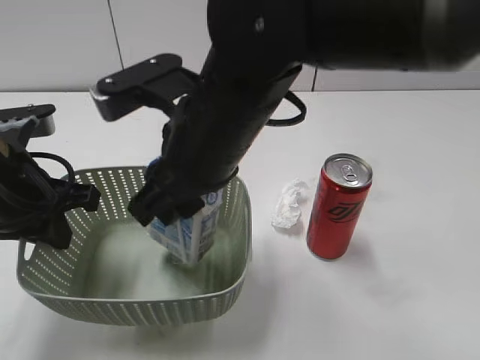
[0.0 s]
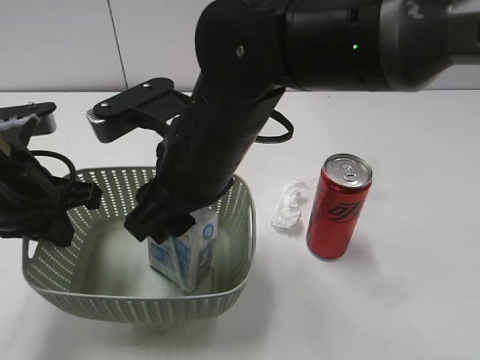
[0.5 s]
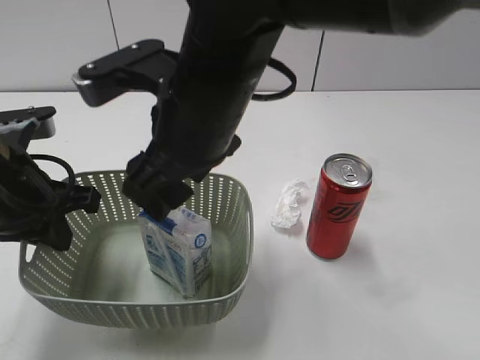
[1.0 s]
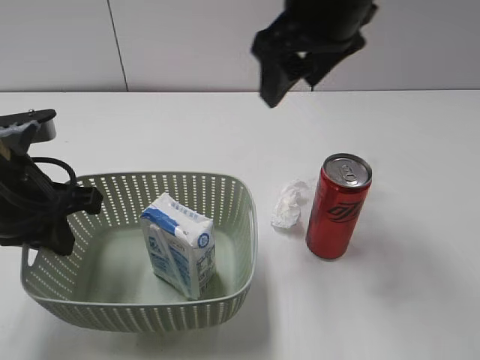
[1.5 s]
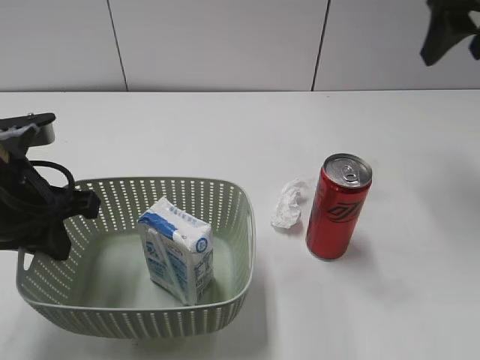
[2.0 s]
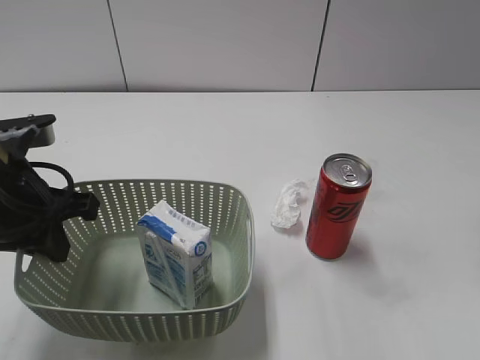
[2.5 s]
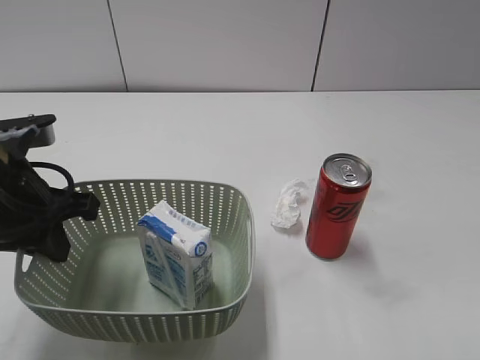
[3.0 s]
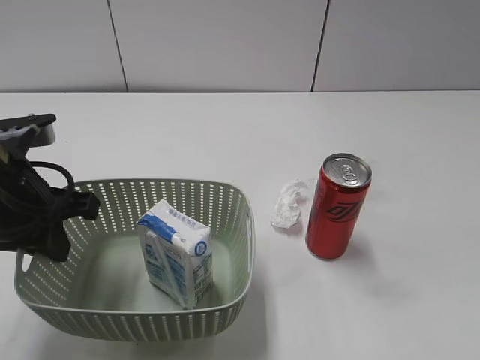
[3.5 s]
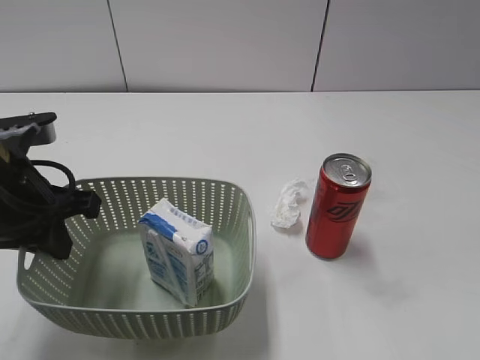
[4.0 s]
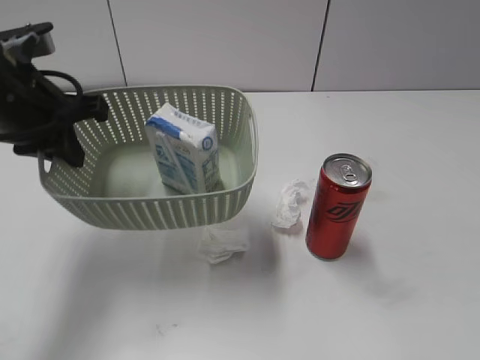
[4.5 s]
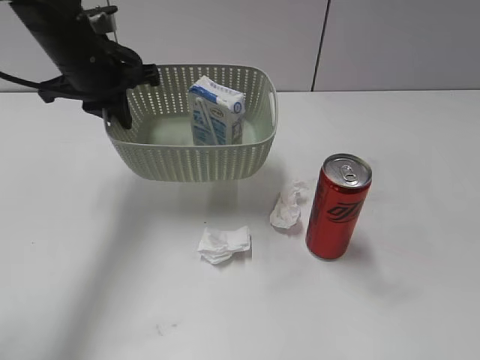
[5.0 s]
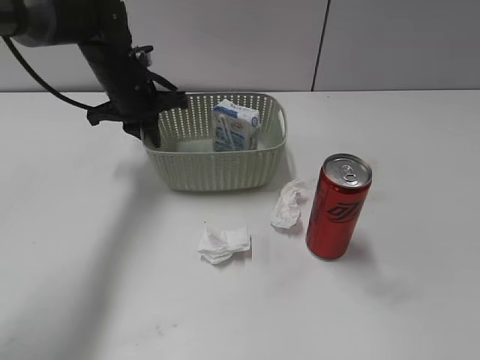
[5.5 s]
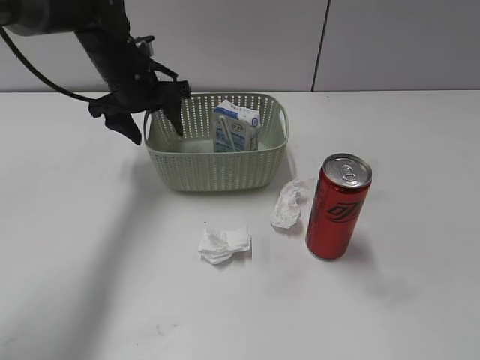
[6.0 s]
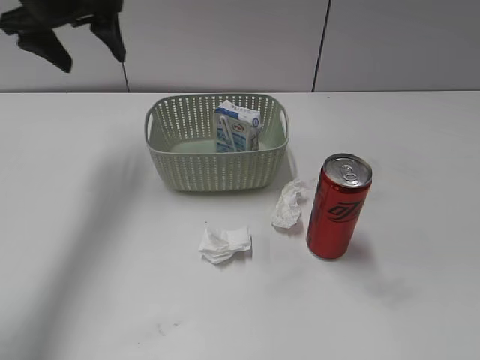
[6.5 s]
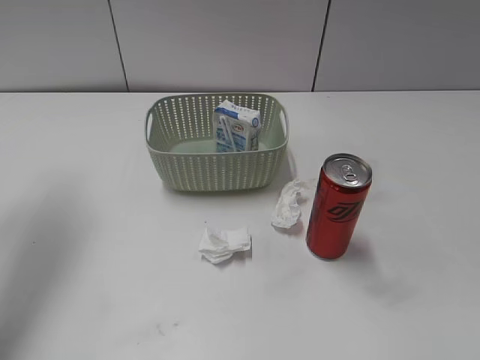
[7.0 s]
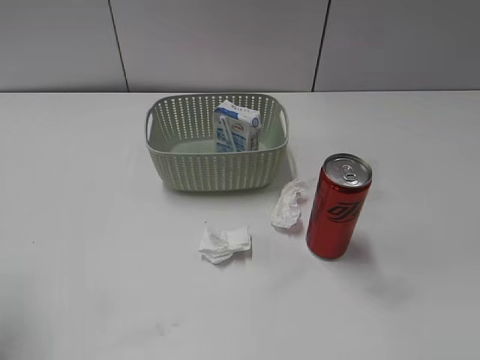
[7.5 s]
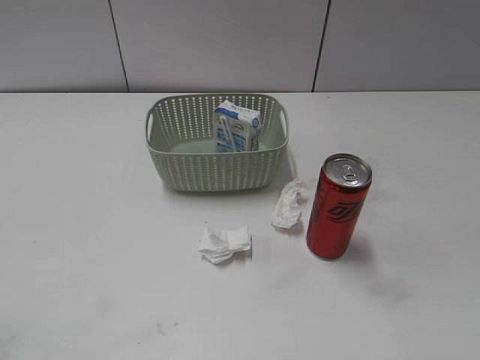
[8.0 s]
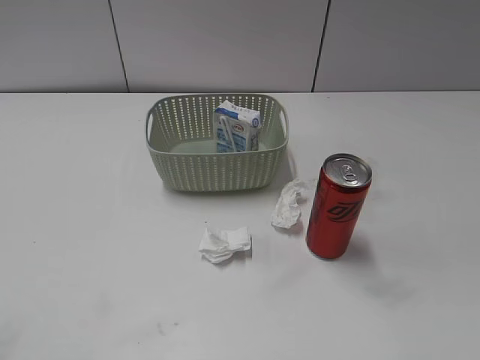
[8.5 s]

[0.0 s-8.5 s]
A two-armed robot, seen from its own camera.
Step, 1.5 to 6.0 s: Place the basket on the table with left gripper.
0.0 to 2.0 s: The right gripper goes about 30 cm to the right and forward, and opens.
2.0 to 4.0 s: The right gripper moves backward, some 35 cm.
4.0 to 6.5 s: The left gripper heads forward and upward, covering roughly 25 cm, and opens its fingers.
6.5 to 8.5 s: The left gripper shifts roughly 40 cm backward.

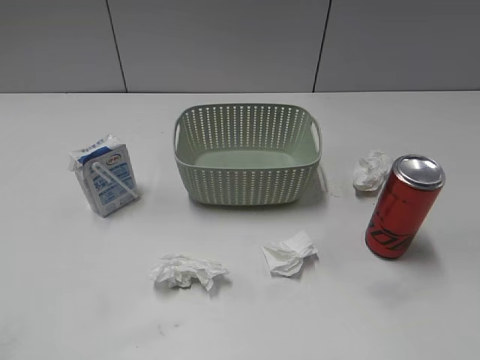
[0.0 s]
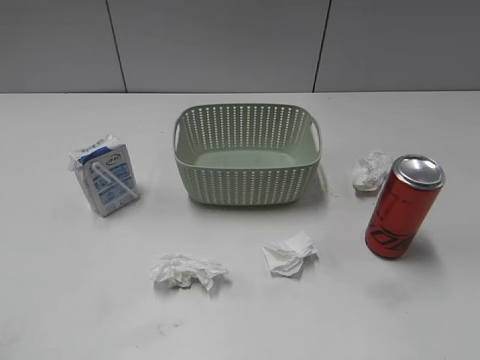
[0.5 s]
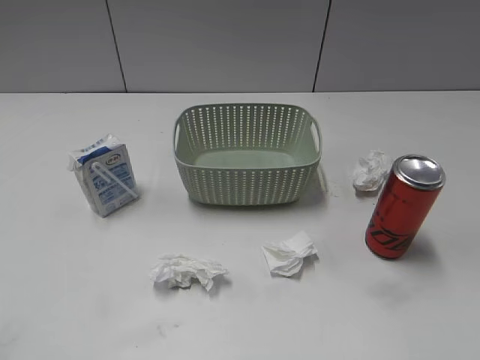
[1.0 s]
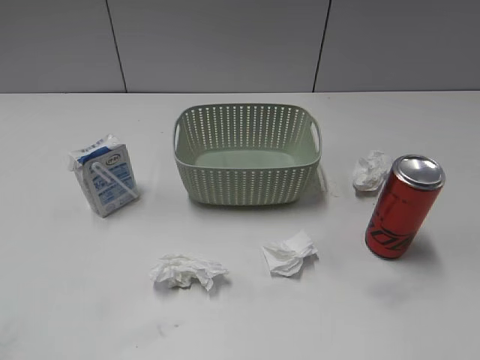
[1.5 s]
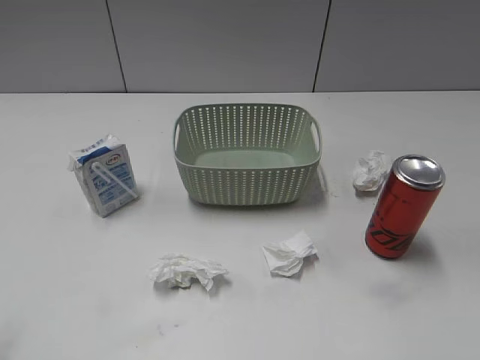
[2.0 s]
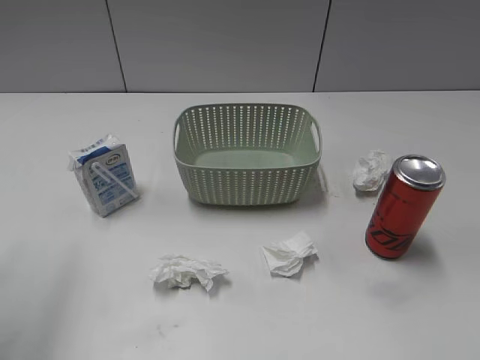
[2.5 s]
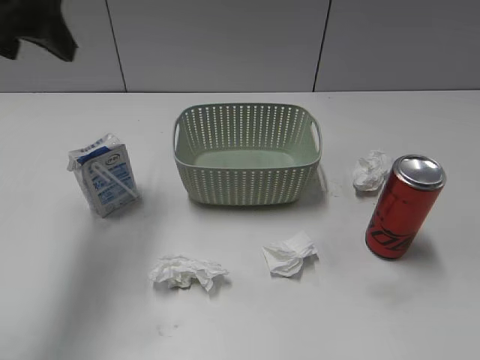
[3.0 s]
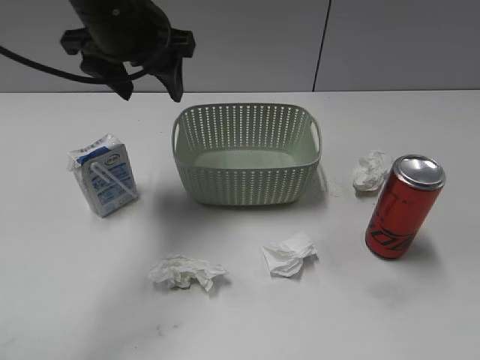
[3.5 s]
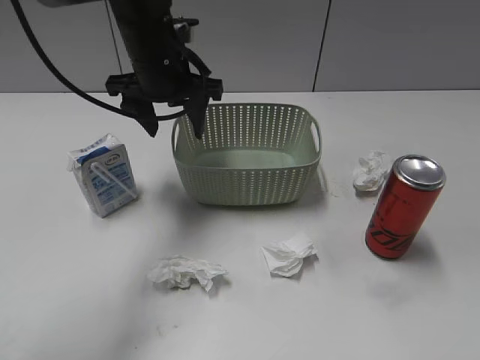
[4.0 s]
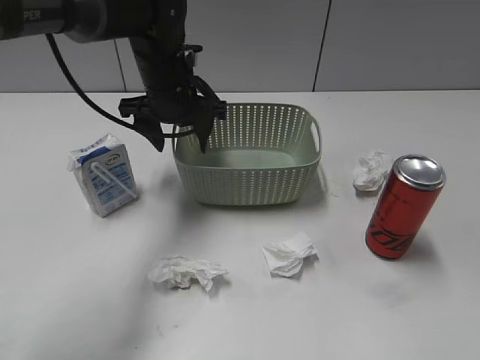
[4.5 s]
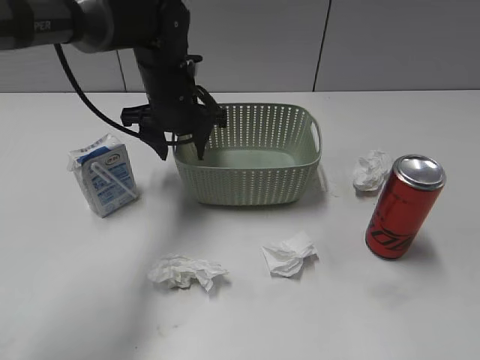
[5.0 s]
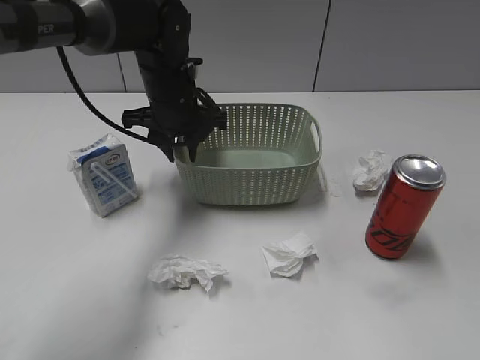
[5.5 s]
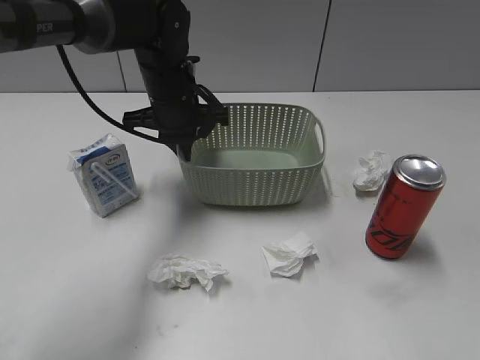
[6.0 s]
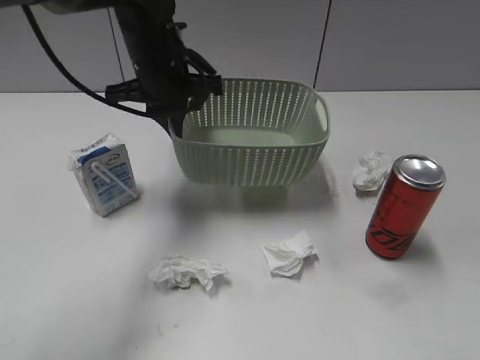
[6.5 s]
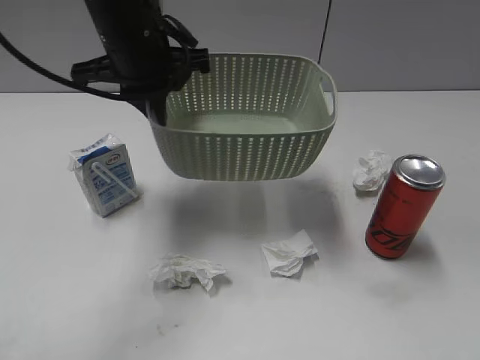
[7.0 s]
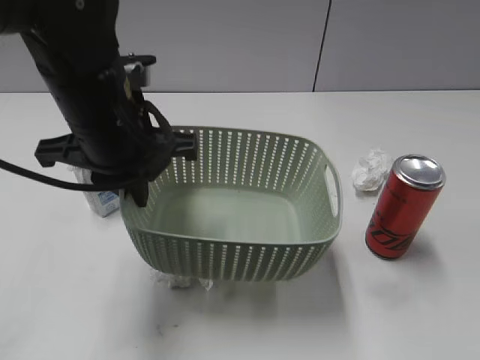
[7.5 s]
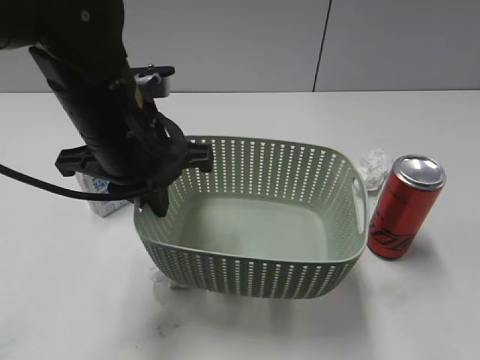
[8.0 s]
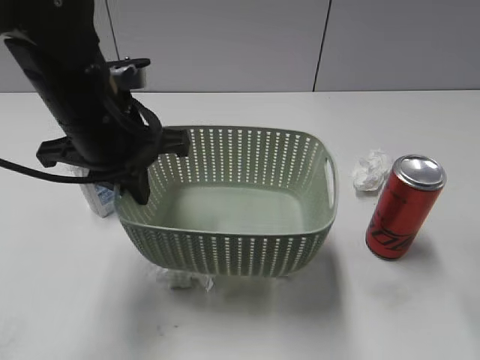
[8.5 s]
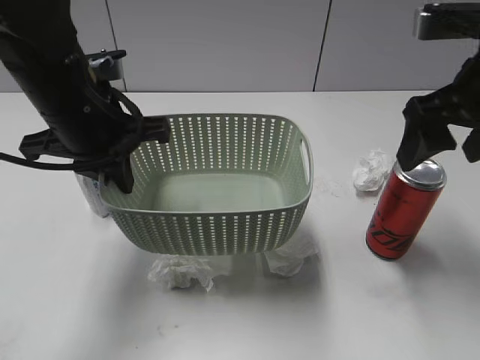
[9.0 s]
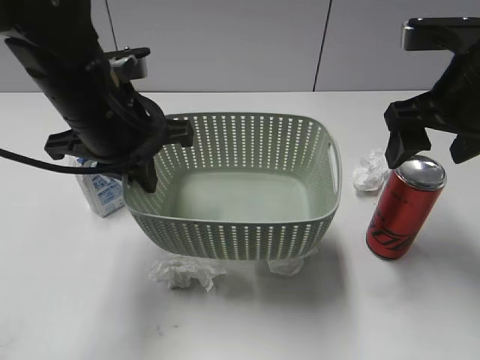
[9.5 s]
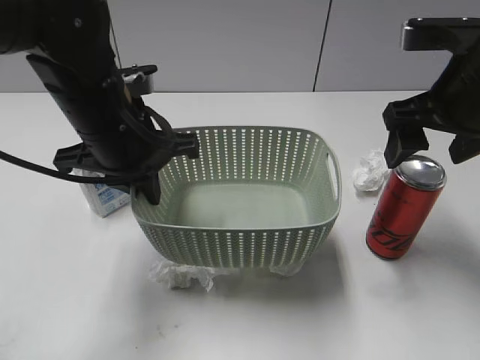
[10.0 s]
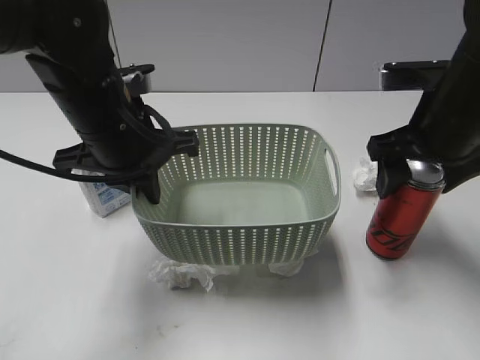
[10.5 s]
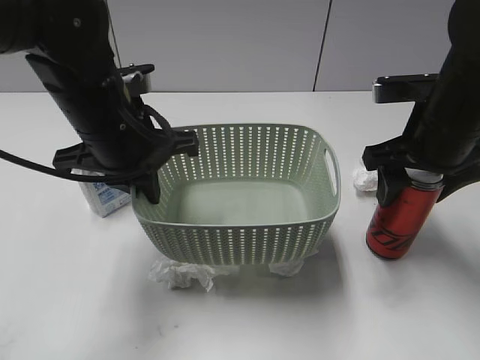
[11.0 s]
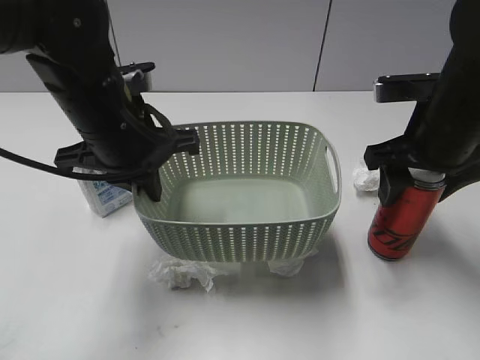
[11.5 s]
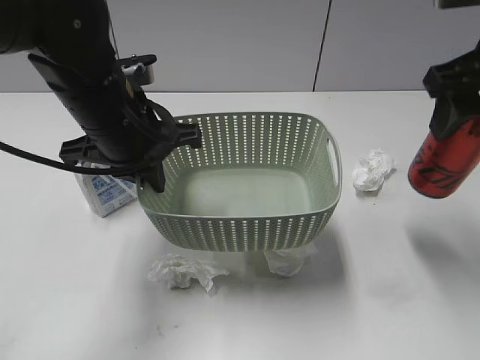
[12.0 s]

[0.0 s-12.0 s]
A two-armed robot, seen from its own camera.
Step, 3.0 to 5.5 s: Grasp the basket with left gripper.
Step, 6.0 to 8.5 s: Lift the basket with left gripper.
Step, 9.0 to 11.5 s: Grasp the cola can with right gripper.
2.0 to 4.0 s: The left gripper heads forward and to the right, covering roughly 40 cm.
4.0 to 6.0 s: The left gripper heads downward, covering some 5 cm, and closes.
6.0 to 8.0 s: The right gripper heads forward and upward, covering approximately 10 cm; the left gripper moves backward and upward, approximately 20 cm.
8.0 to 10.0 s: The right gripper shifts about 25 cm forward and to the left, and opens.
10.0 to 12.0 s: The right gripper closes.

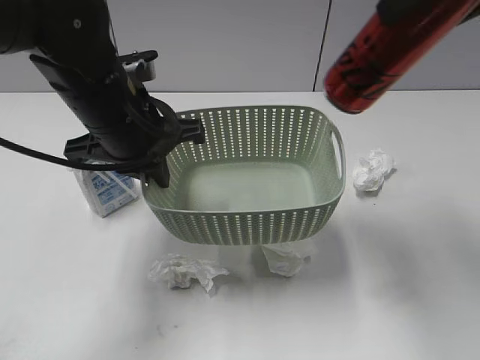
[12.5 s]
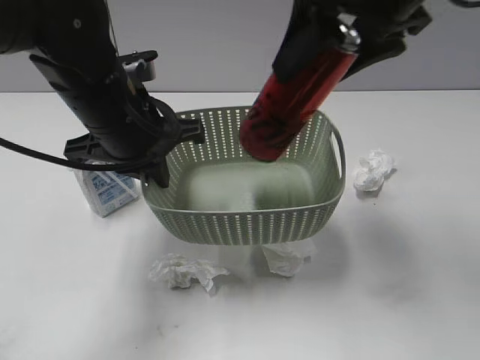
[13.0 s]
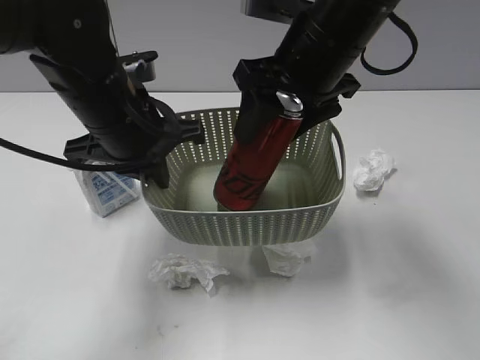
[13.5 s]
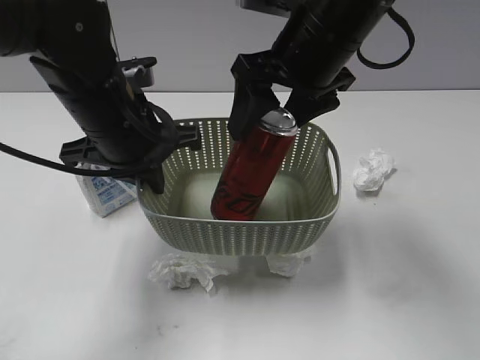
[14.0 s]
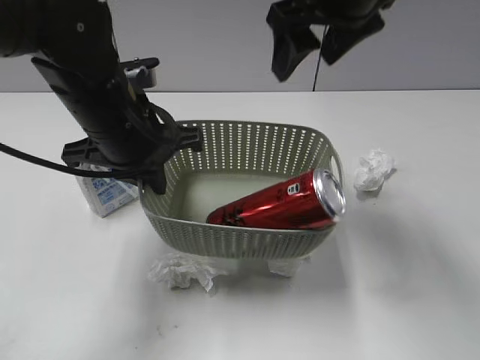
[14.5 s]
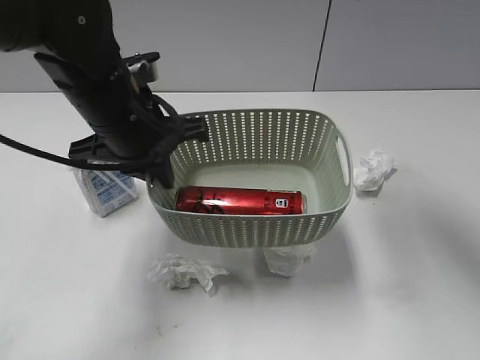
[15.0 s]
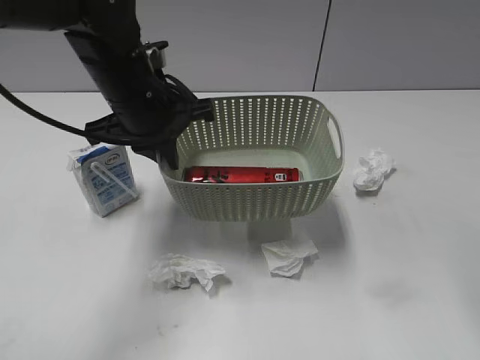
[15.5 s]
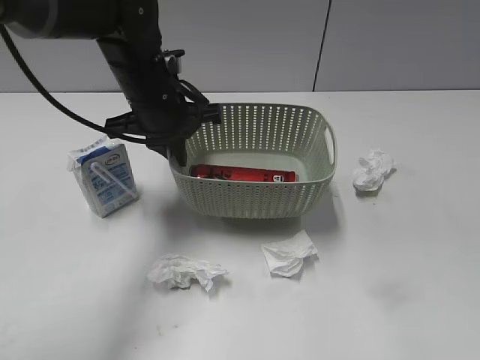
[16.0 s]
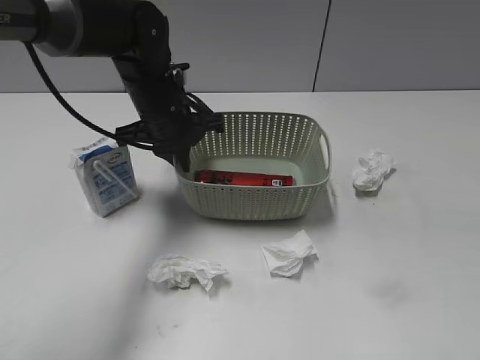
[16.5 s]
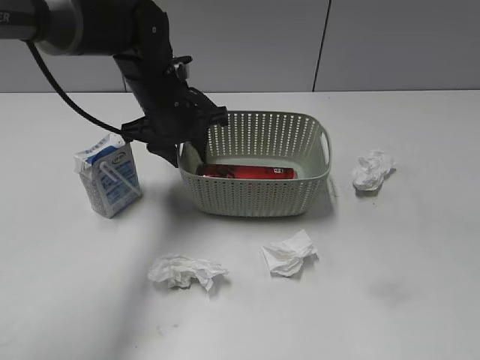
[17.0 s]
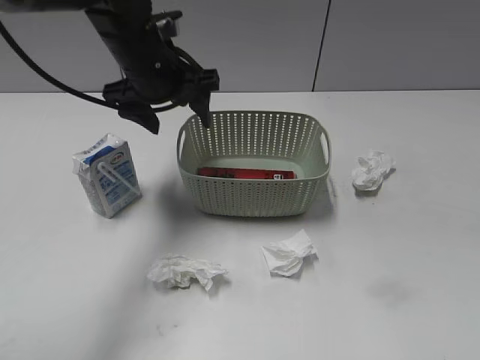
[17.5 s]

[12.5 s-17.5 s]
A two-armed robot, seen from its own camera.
Step, 12.5 to 14.0 s: Place the cola can in the basket with right gripper.
Step, 14.5 to 17.0 s: Place the basket on the table with left gripper.
12.5 to 15.0 s: The right gripper goes about 5 cm forward, reaches some 15 cm downward, then returns, and opens up.
15.0 to 17.5 s: The left gripper is displaced forward by some 10 cm, and opens its fingers. Meanwhile the right gripper is displaced backward and to the right by roughly 35 cm.
